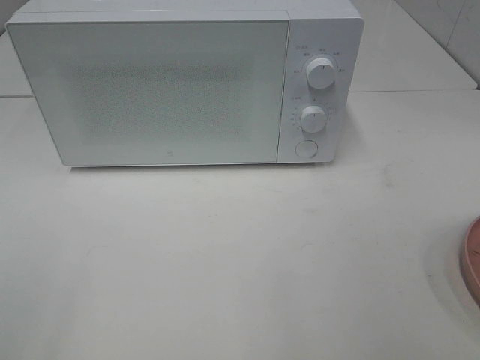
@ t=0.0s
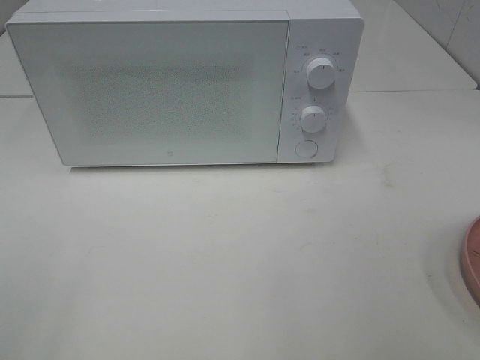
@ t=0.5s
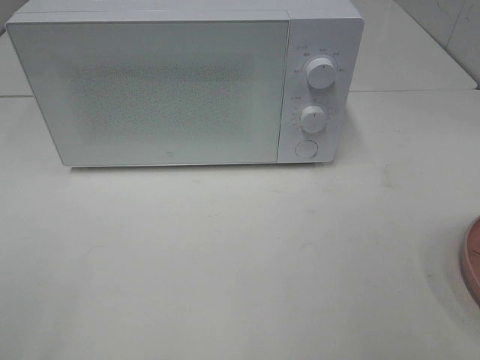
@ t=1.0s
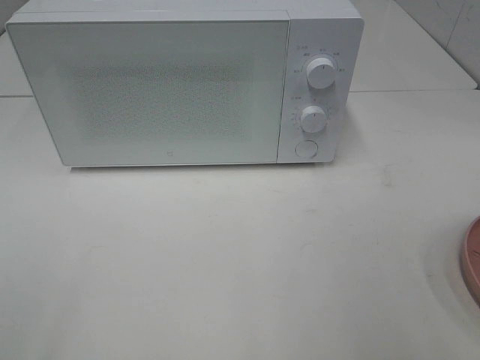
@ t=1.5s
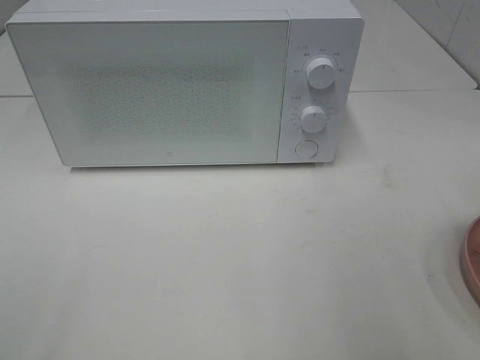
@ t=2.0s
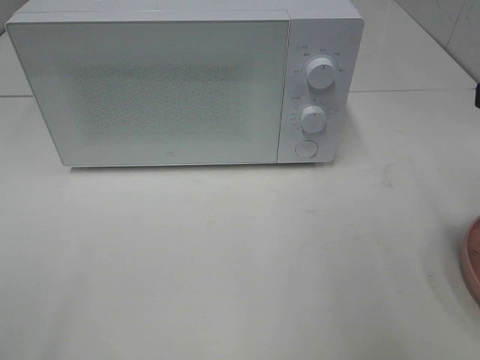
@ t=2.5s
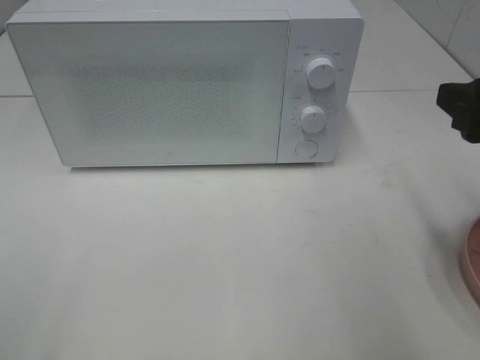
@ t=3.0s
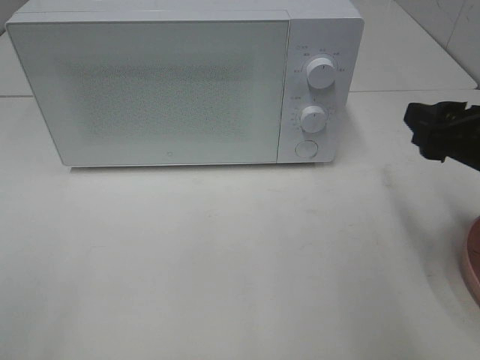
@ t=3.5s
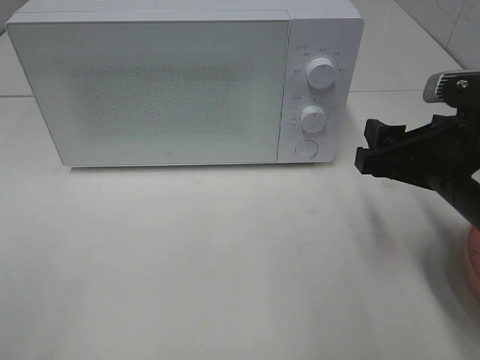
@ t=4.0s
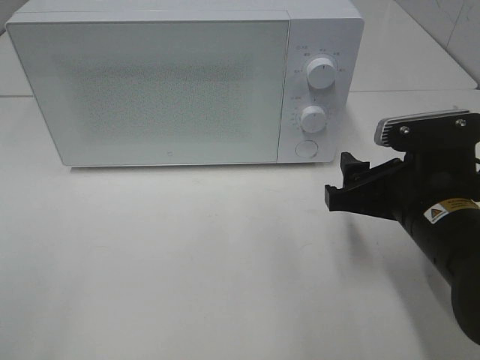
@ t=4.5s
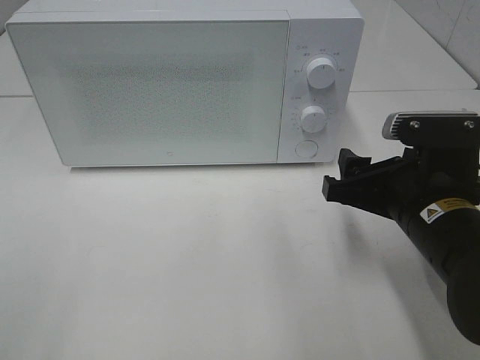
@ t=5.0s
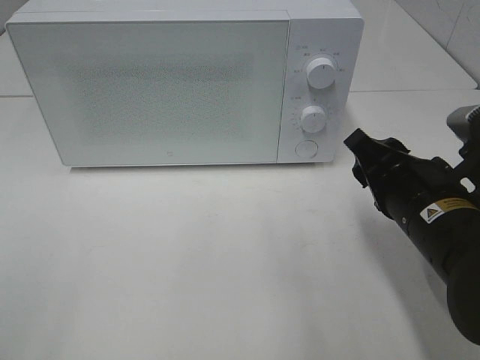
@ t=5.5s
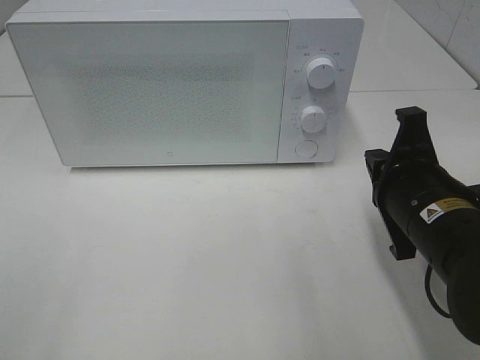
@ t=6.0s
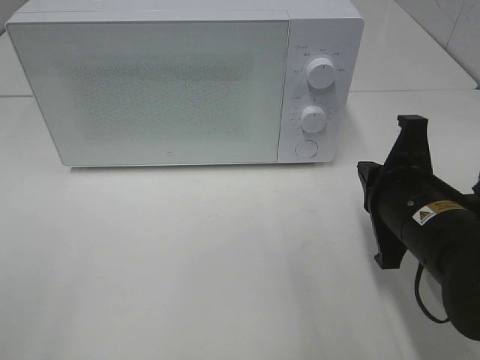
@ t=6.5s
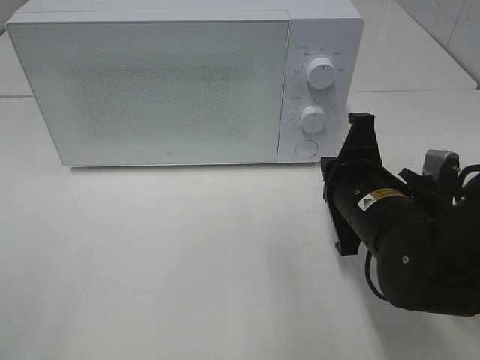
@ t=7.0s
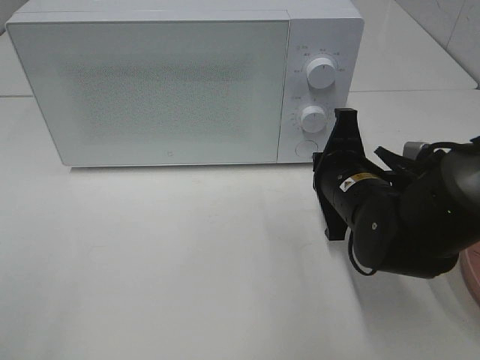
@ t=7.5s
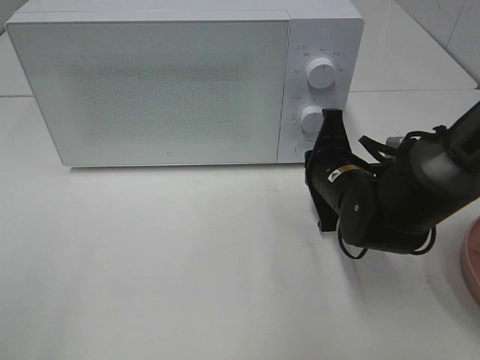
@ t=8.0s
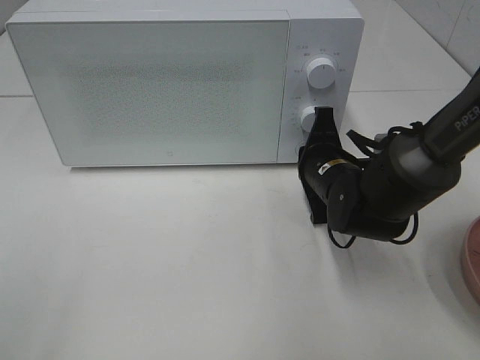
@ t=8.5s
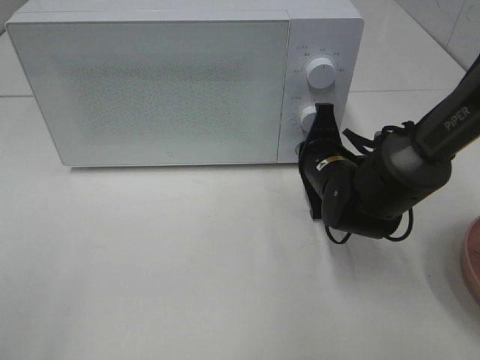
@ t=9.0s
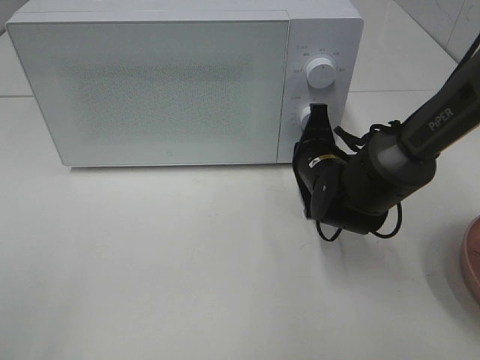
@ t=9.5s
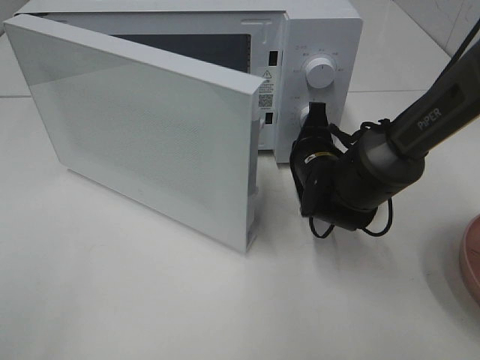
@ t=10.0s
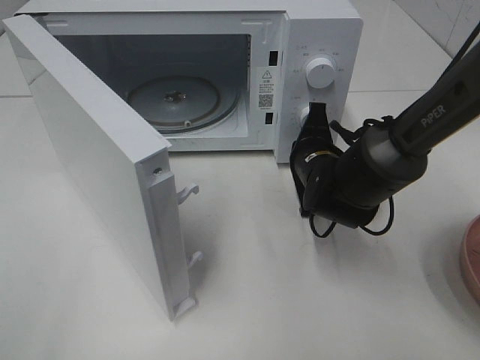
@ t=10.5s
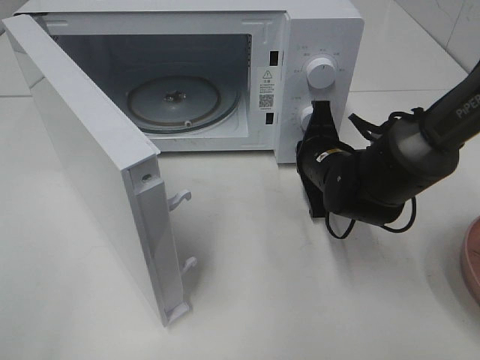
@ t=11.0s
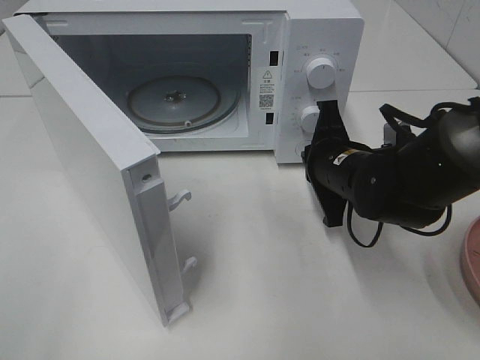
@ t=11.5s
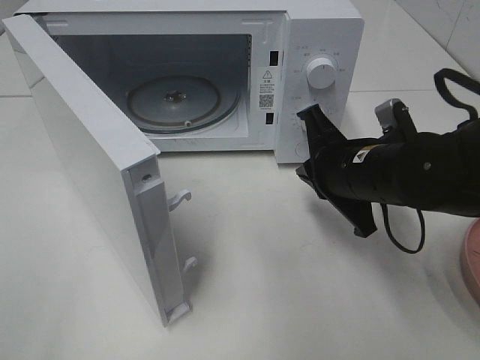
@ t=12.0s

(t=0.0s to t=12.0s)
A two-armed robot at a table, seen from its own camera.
Task of the whole recording: Heat the burger.
Step, t=0.0s - t=11.0s: Right hand: press the switch.
t=2.0s - t=4.0s: The right gripper goes approximately 15 cm downward, forward and to the left.
t=4.0s - t=6.0s: The right gripper closes its fingers.
t=6.0s - t=8.0s: The right gripper shifts about 10 cm forward and downward.
t=8.0s - t=10.0s: The right gripper changes place by some 5 cm.
t=10.0s - t=12.0s: The right gripper goes approximately 10 cm backward and upward.

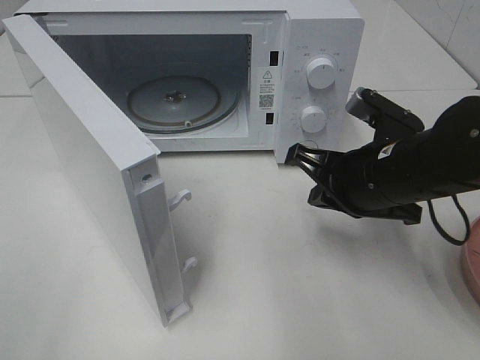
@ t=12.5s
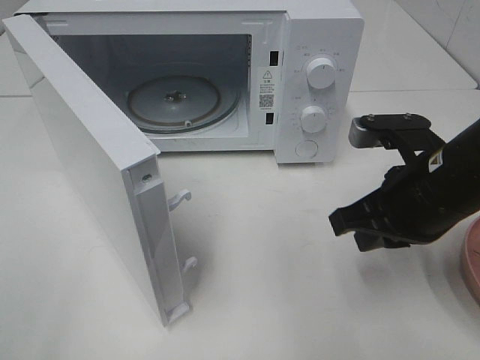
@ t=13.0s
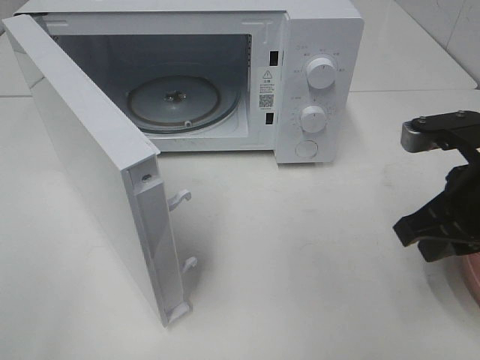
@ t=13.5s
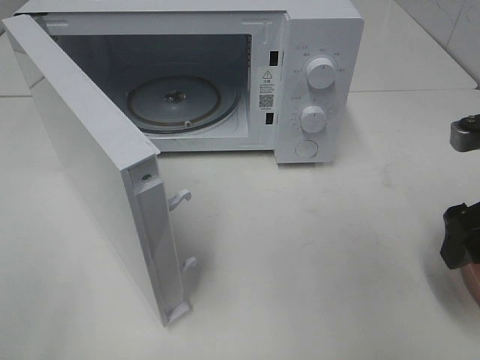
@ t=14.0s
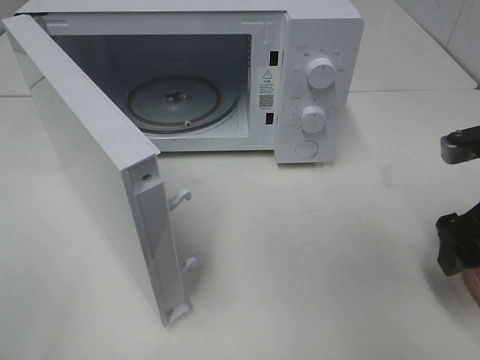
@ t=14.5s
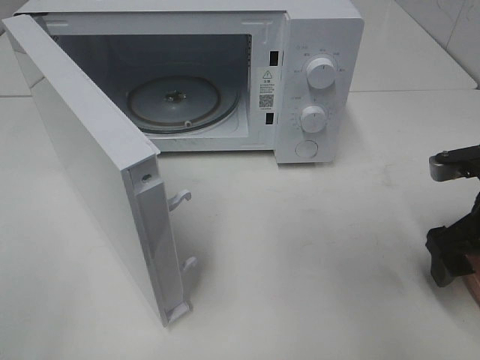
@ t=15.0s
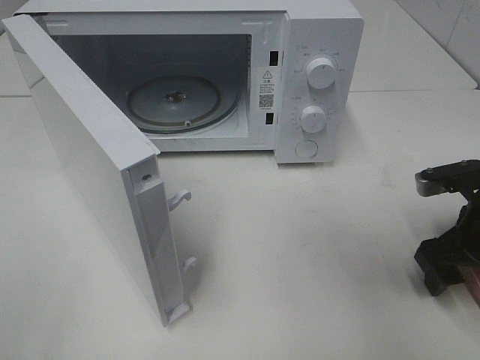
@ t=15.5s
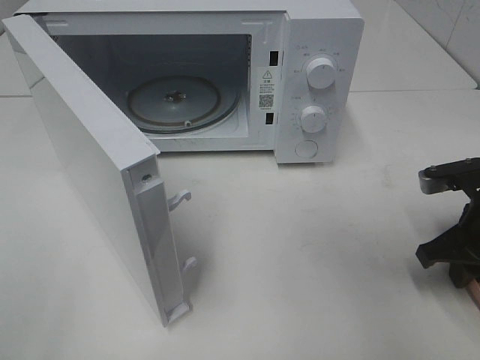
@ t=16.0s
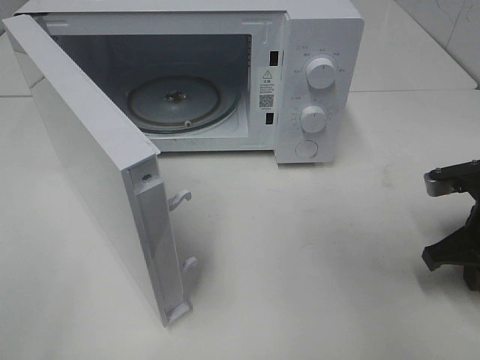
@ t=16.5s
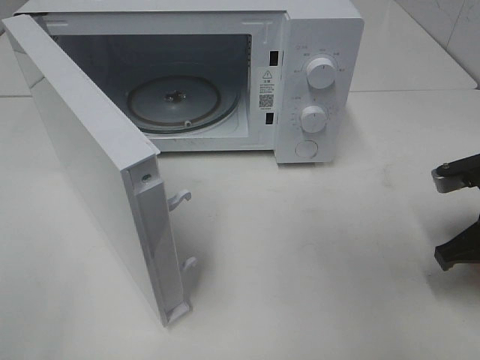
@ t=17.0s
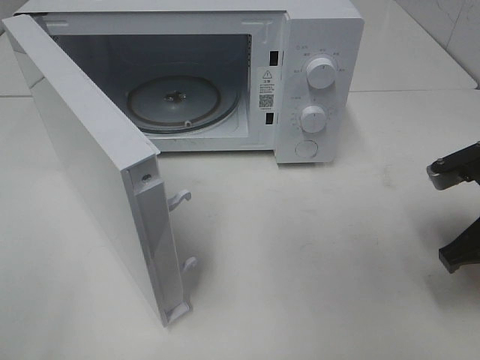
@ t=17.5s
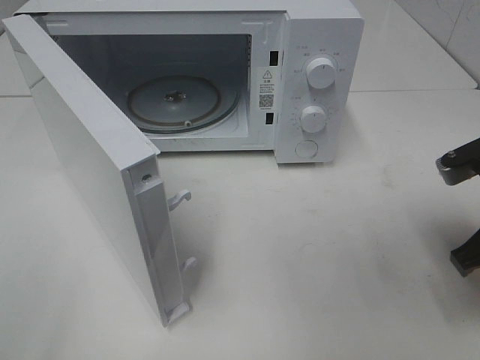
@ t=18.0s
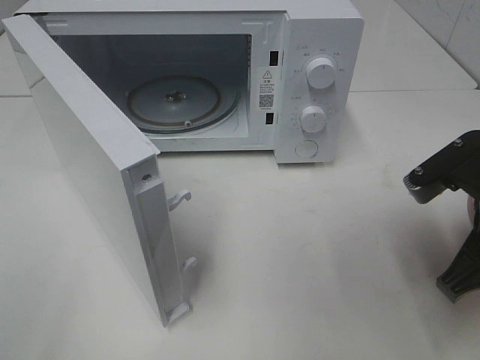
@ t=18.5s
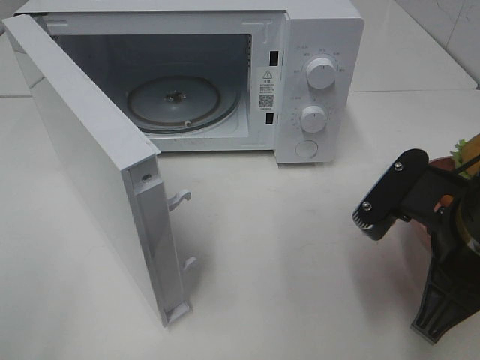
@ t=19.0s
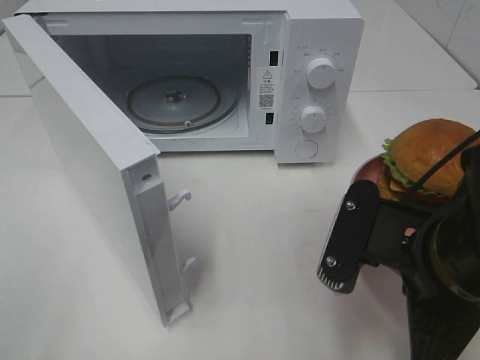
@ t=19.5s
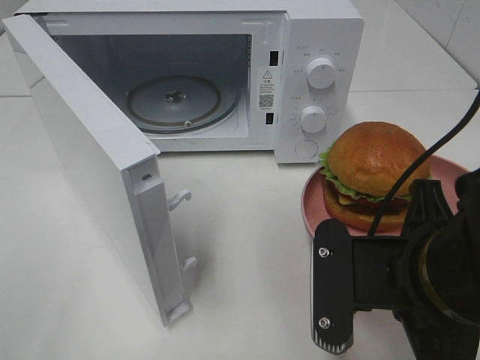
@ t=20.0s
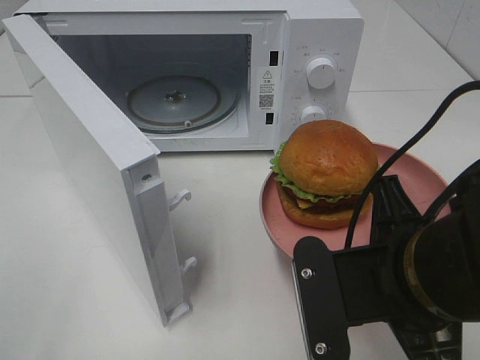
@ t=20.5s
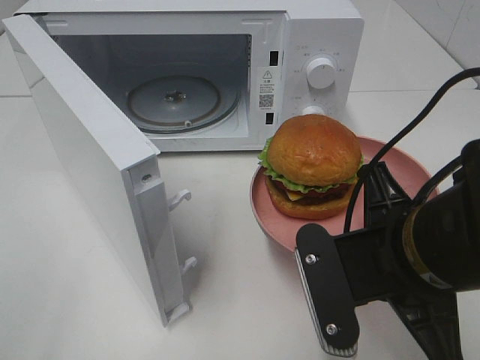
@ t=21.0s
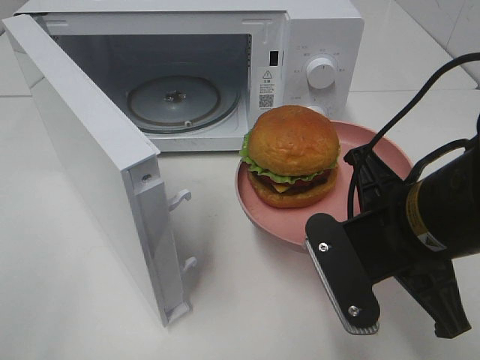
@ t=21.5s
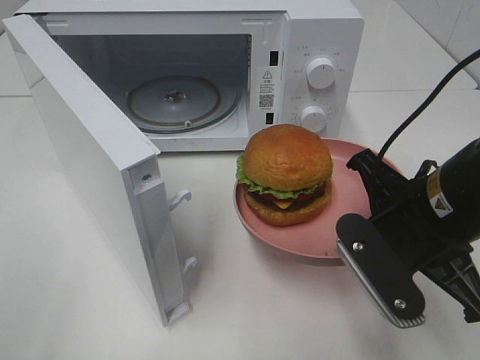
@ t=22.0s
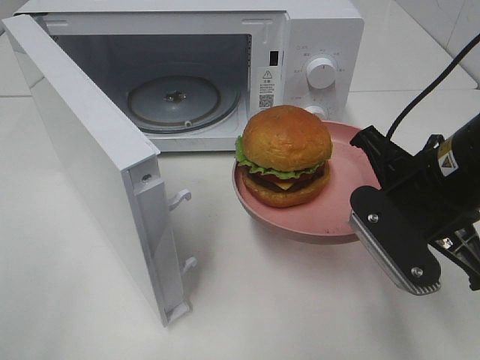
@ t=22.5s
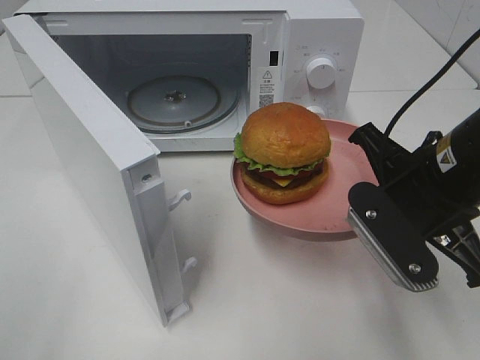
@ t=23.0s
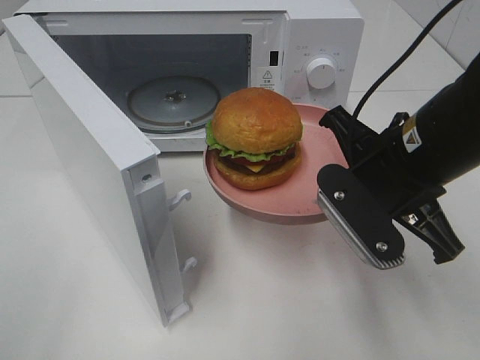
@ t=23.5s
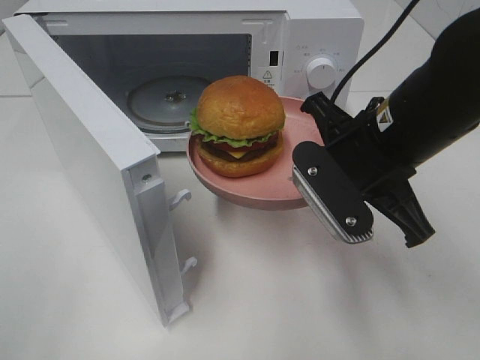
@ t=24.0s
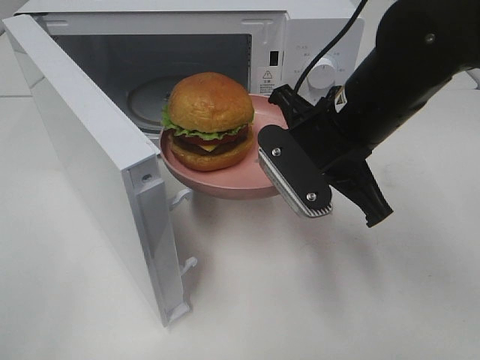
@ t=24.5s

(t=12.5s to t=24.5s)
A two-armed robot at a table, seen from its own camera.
Task of the whole recording: Heat the burger.
Step, t=12.5s - t=16.5s: Right hand: grab the plate with the hamburger.
t=12.5s - t=14.5s: The right gripper travels to the right by about 10 cm, and opens up.
t=14.5s - t=16.5s: The right gripper moves downward, some 5 cm, and closes.
t=16.5s - t=18.5s: The right gripper travels upward, to the left and backward by about 10 cm.
t=18.5s - t=20.5s: The right gripper goes about 10 cm to the left and backward.
t=20.5s - t=22.5s: The right gripper is displaced forward and to the right by about 10 cm.
t=22.5s - t=24.5s: The right gripper heads to the left and forward, covering roughly 10 cm.

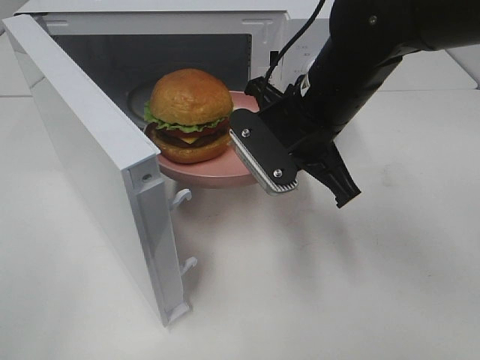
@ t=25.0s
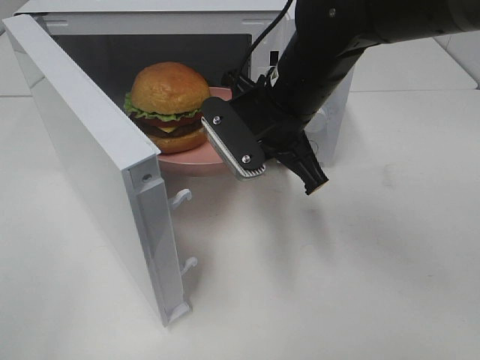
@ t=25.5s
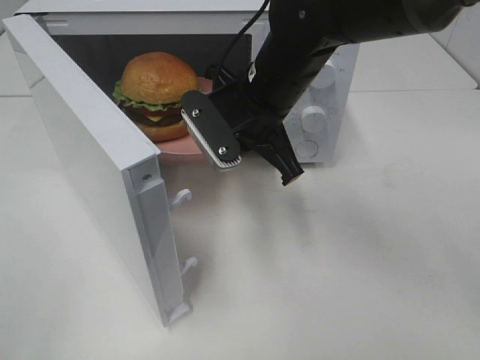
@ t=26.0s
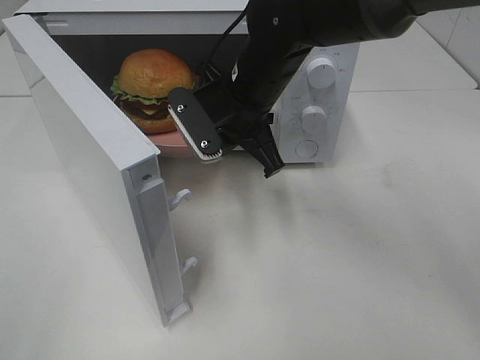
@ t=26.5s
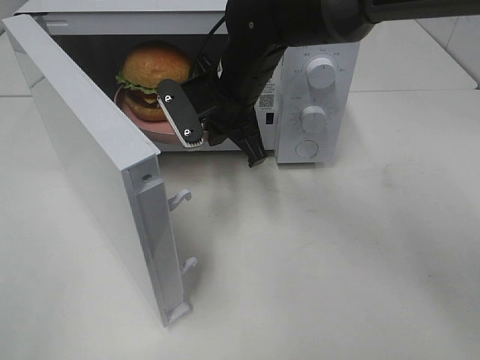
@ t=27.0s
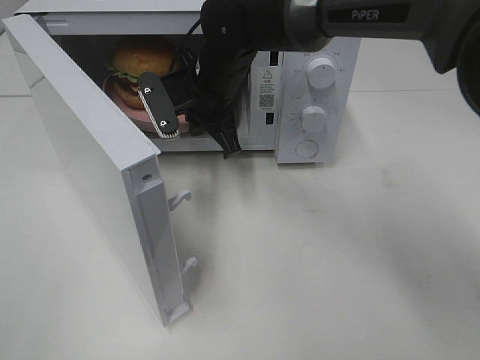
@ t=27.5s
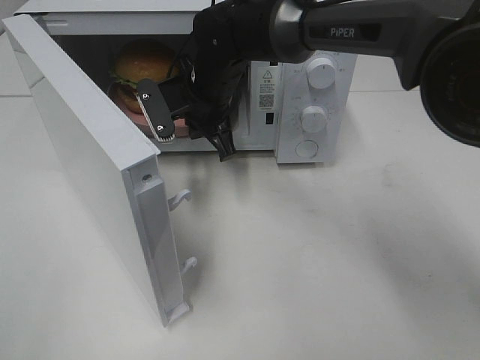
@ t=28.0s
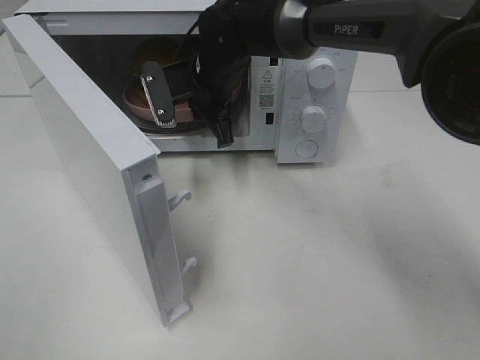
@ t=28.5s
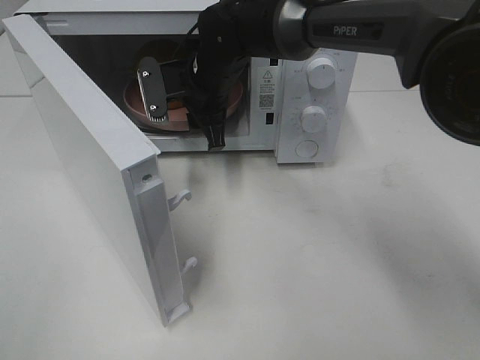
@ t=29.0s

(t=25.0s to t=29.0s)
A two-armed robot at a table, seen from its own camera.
Task of the whole recording: Heat the burger.
t=25.0s - t=27.0s: The right gripper is displaced forward and to the left by approximately 10 cm.
t=27.0s - t=29.0s: The right gripper changes place by about 5 cm, and opens its fingers.
